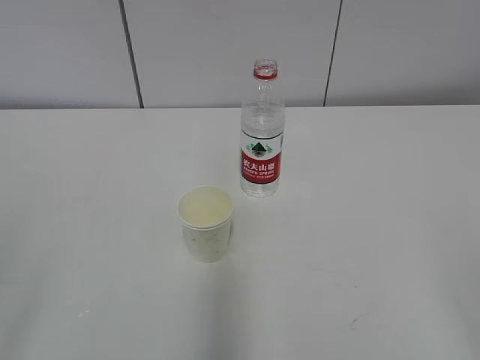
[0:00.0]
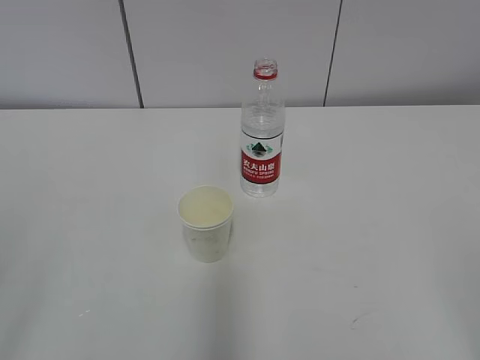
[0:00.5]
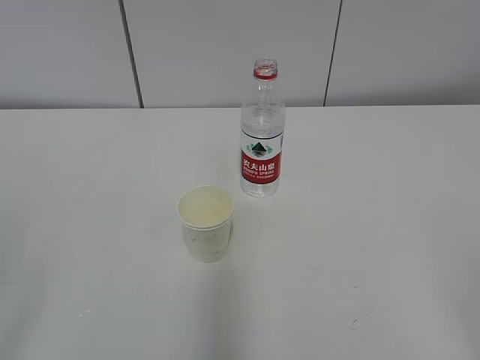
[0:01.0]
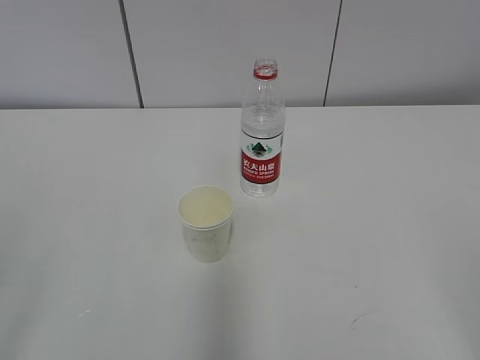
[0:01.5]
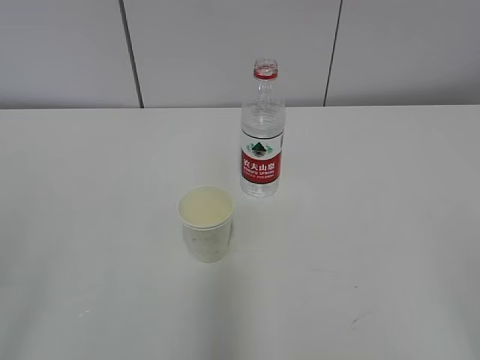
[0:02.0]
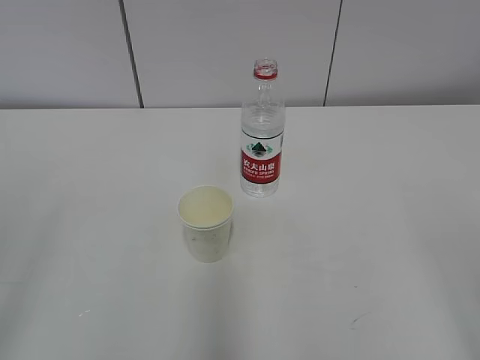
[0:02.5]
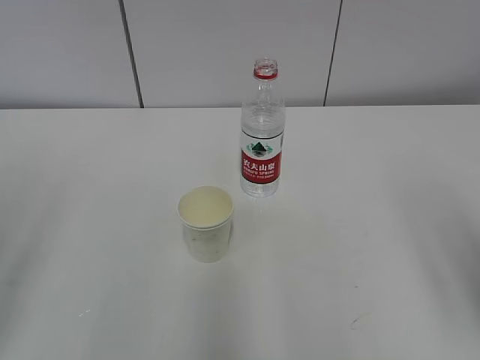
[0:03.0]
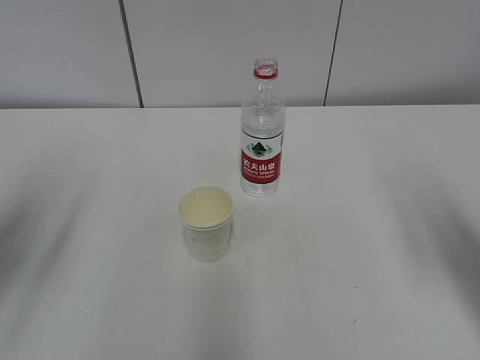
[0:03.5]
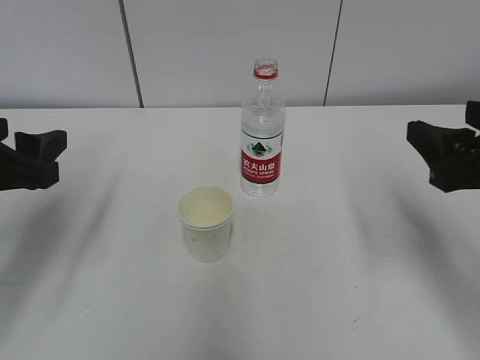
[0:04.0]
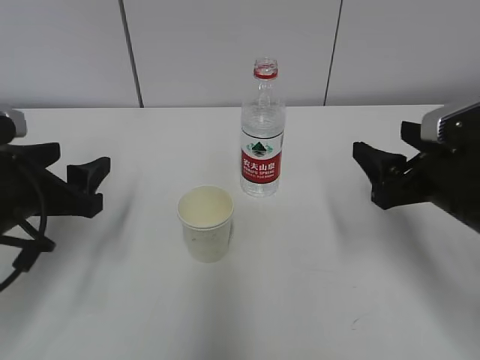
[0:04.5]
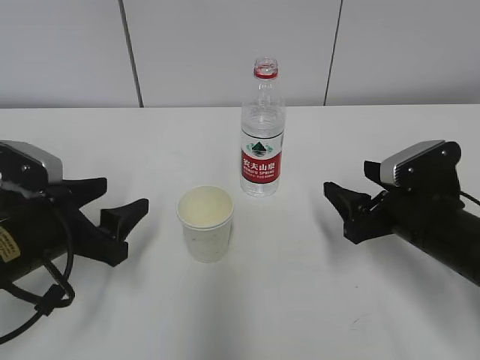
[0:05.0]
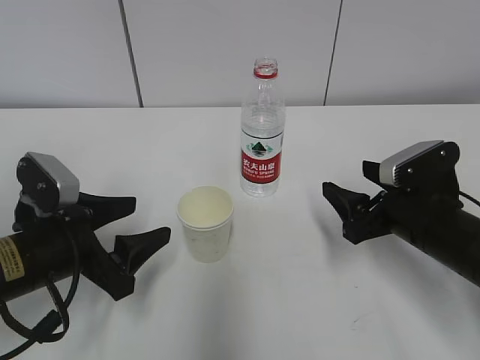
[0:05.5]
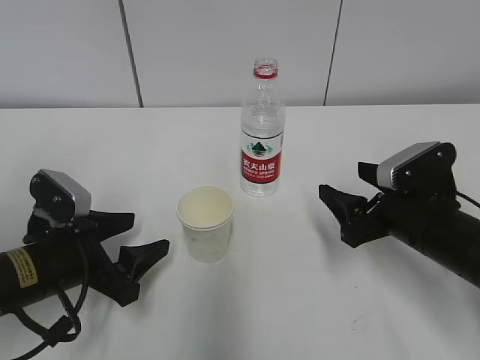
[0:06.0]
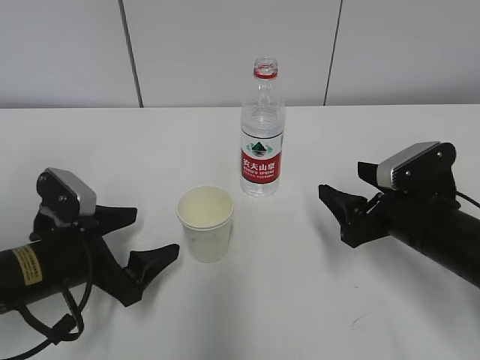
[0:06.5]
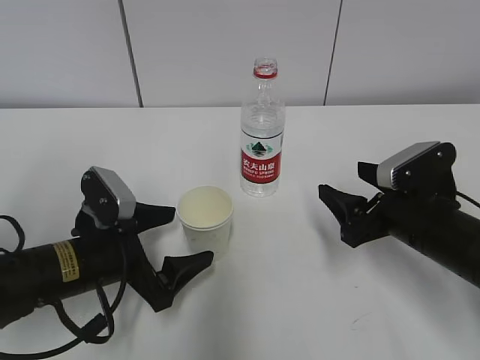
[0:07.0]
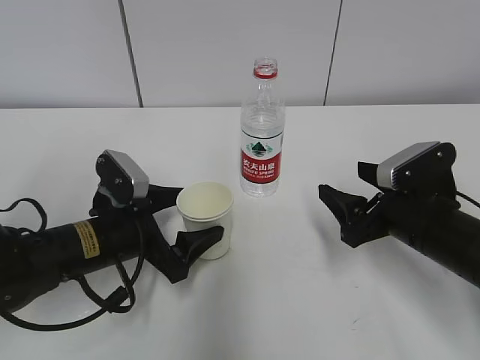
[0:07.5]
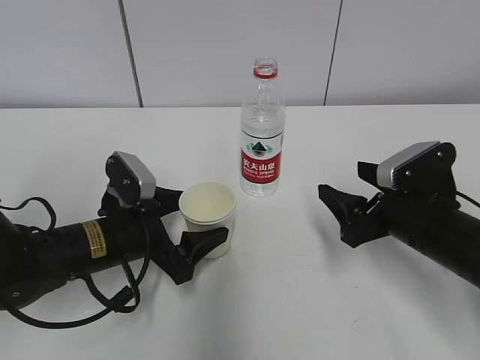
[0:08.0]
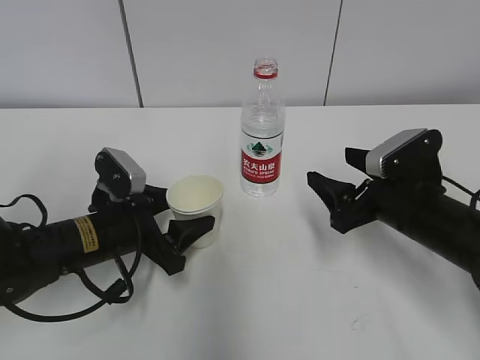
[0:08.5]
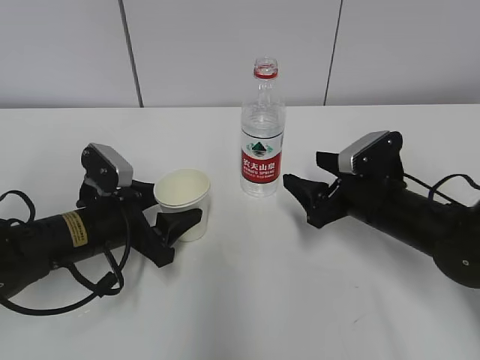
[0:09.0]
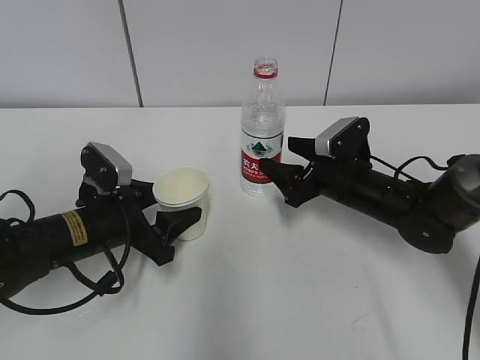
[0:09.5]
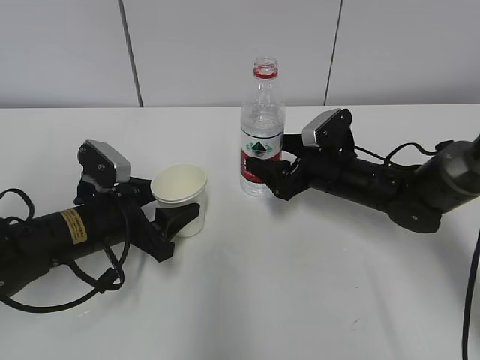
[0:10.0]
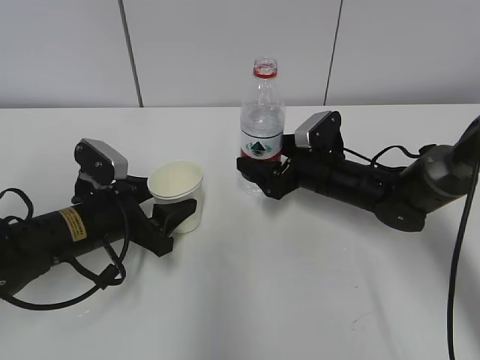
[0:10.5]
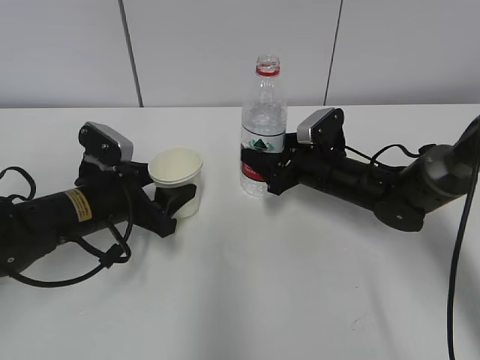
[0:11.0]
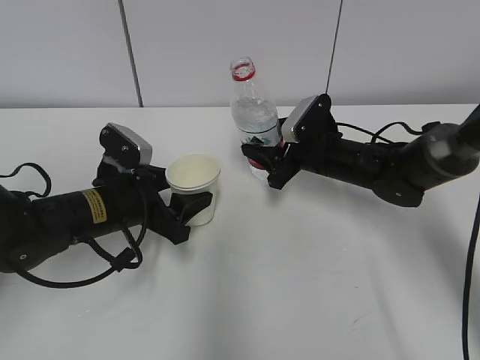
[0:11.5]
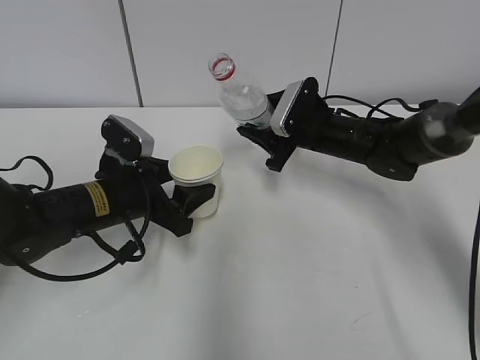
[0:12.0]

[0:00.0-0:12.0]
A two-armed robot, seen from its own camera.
Step, 0:00.0 to 0:09.0: Grab the paper cup with the left hand.
0:02.0 to 0:04.0: The two grippers go some 25 cm forward.
0:04.0 to 0:06.0: The right gripper heads downward and forward, covering about 15 cm. The left gripper moves downward, roughly 15 cm.
0:06.0 to 0:08.0: The left gripper moves to the right, roughly 5 cm.
0:08.0 to 0:10.0: The right gripper travels forward by approximately 15 cm, and opens up. Meanwhile the left gripper closes up.
0:10.0 to 0:12.0: The right gripper goes some 5 cm forward, and closes.

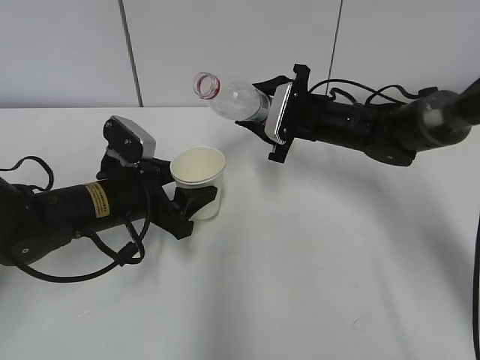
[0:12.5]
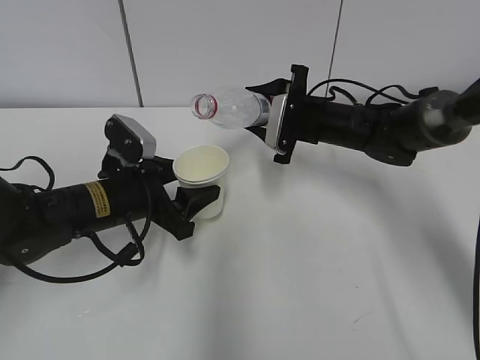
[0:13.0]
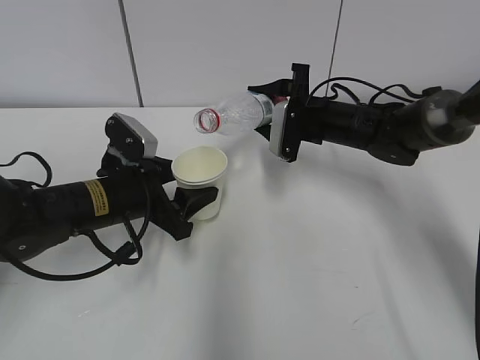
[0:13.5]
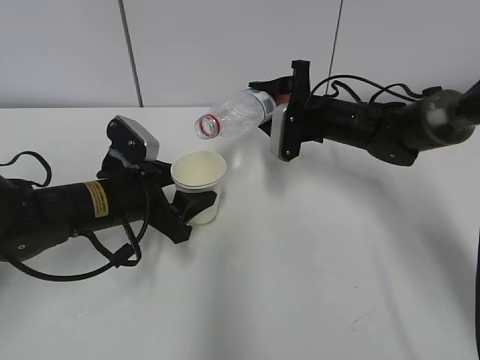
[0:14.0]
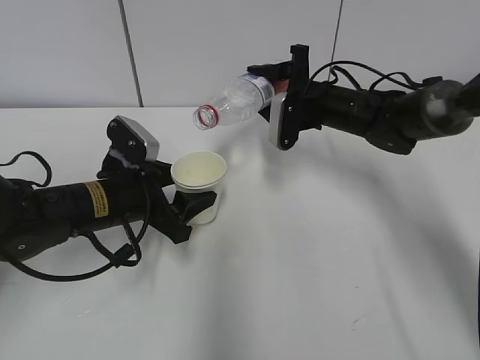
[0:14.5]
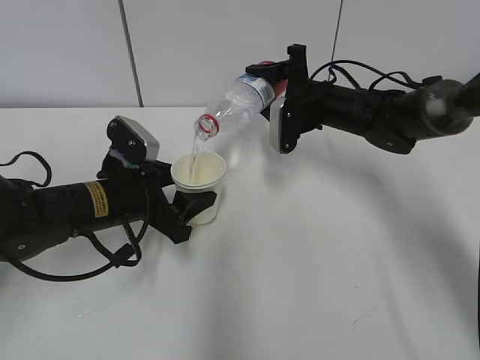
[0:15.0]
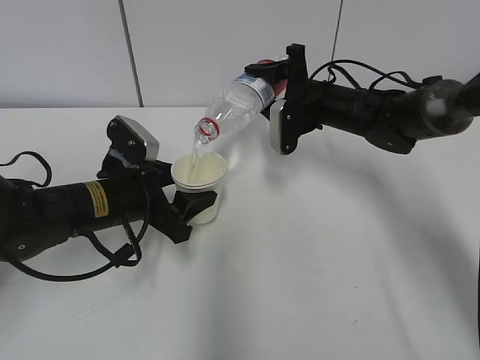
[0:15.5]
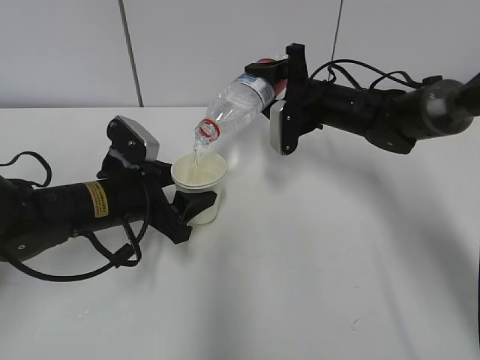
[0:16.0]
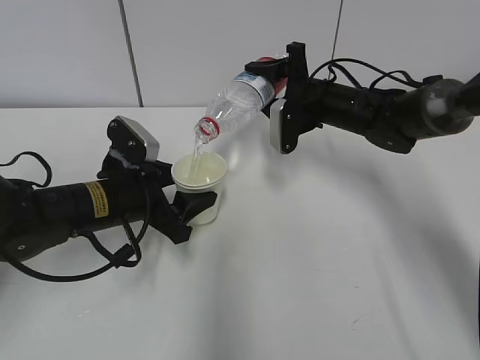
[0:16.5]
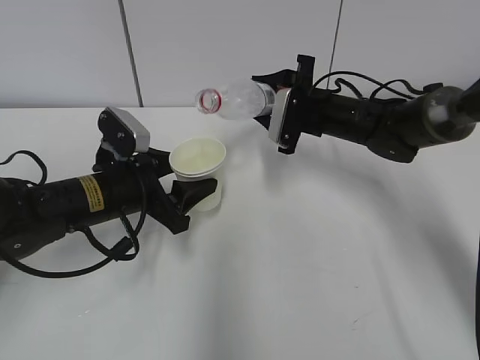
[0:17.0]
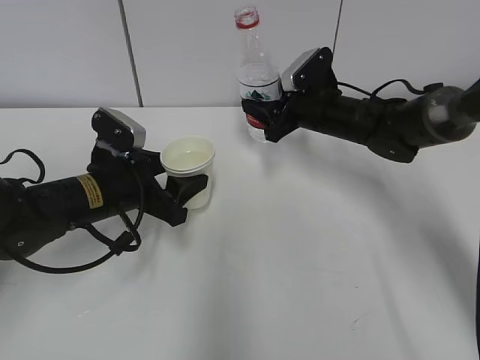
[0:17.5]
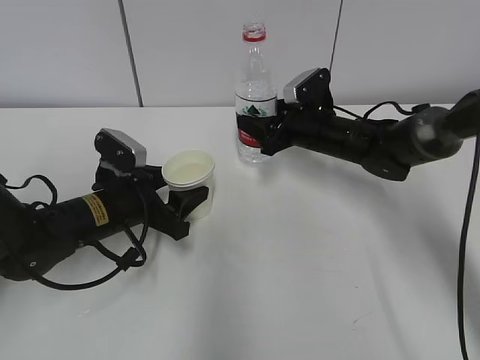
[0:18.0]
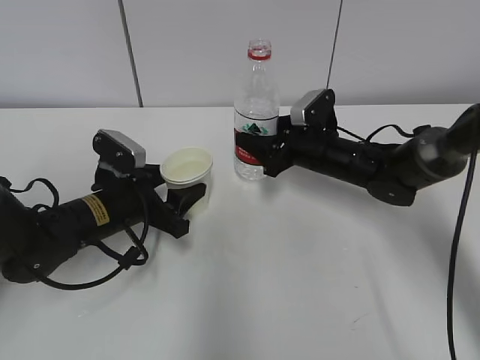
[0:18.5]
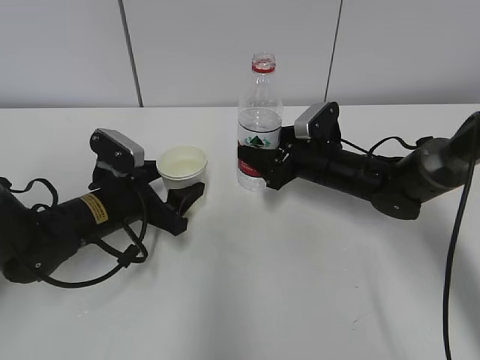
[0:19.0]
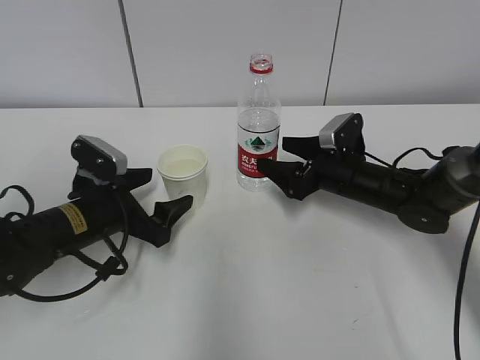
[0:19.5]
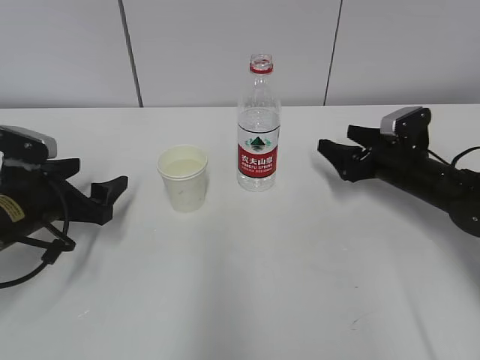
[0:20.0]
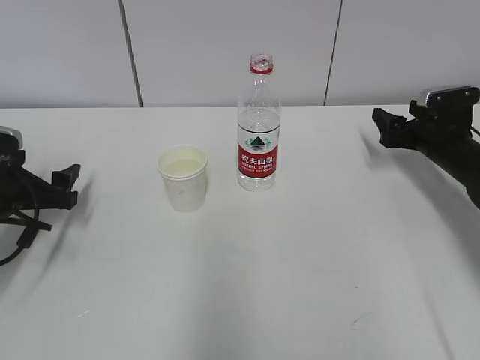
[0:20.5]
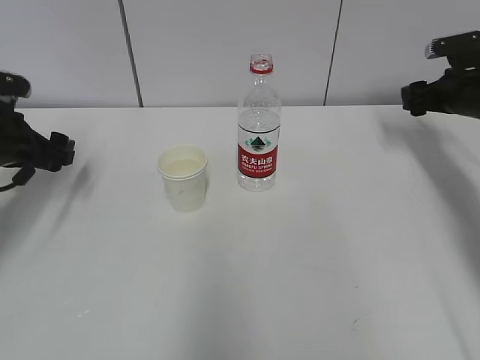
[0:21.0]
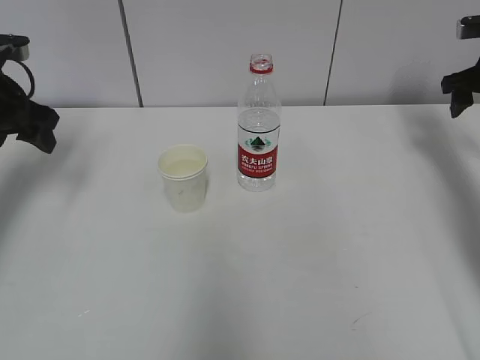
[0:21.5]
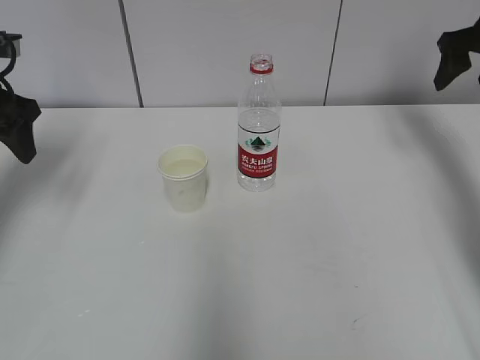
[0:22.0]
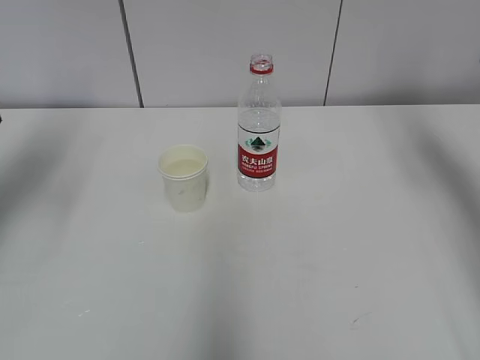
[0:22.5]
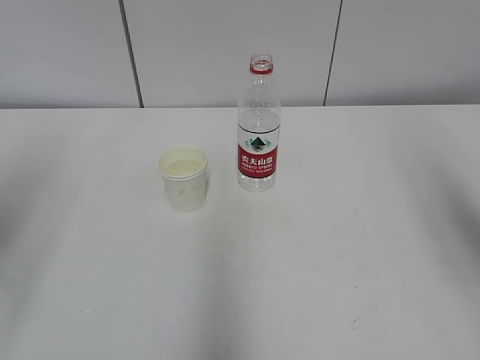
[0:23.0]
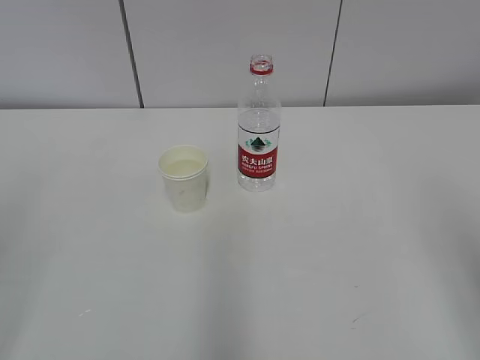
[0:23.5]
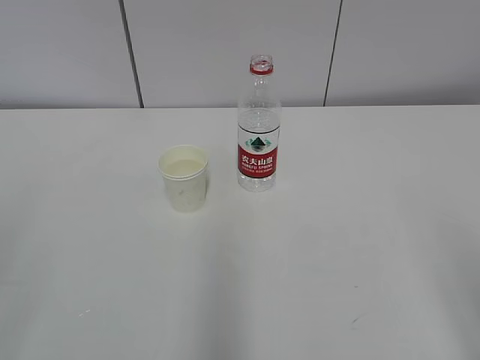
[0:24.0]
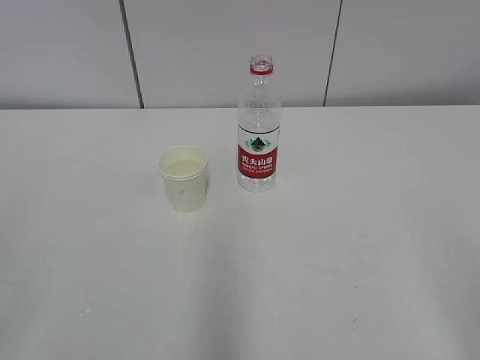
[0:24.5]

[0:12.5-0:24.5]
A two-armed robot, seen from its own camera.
Step, 0:12.5 to 0:14.0: Fill water with the left hand.
Step, 0:12.5 to 0:14.0: Pour water with the right hand.
0:14.5 to 0:16.5: The grippers stay close to where they were, moving slightly.
0:16.5 to 0:18.5: The right gripper shifts some 5 cm downward.
0:18.5 to 0:20.5: The left gripper travels to the left by approximately 15 cm, and opens its fingers. Meanwhile the right gripper goes some 20 cm to the right, and opens its fingers.
0:20.5 to 0:22.5: The right gripper is displaced upward and backward by roughly 30 cm, while the left gripper goes some 25 cm upward.
0:22.5 to 0:24.5: The two grippers go approximately 35 cm backward.

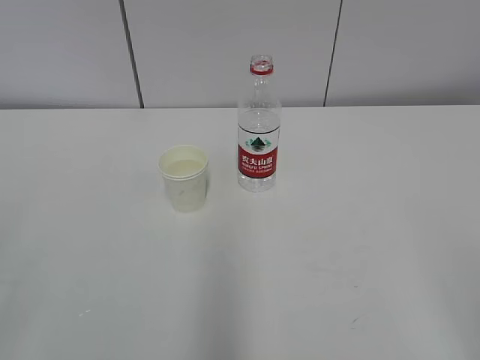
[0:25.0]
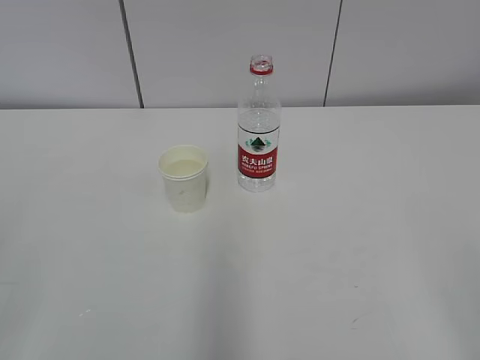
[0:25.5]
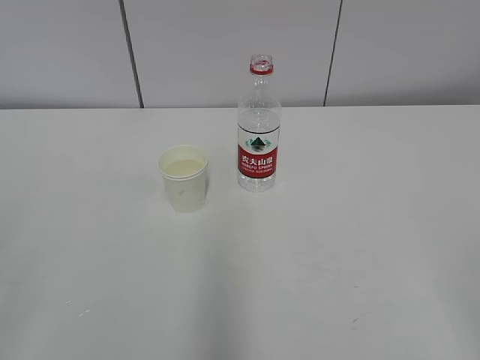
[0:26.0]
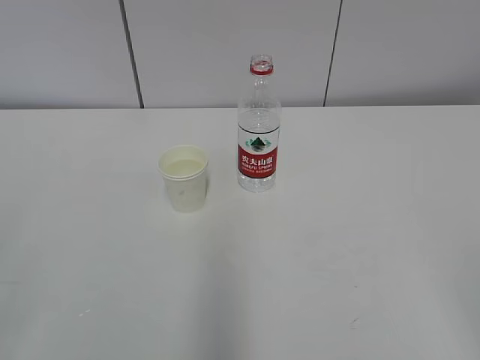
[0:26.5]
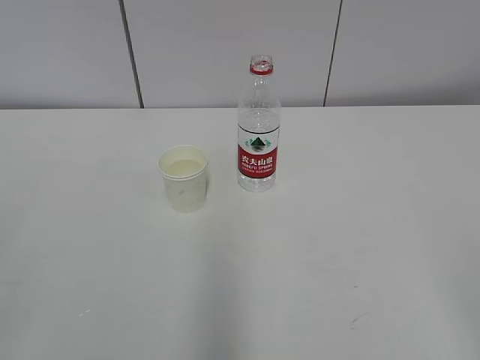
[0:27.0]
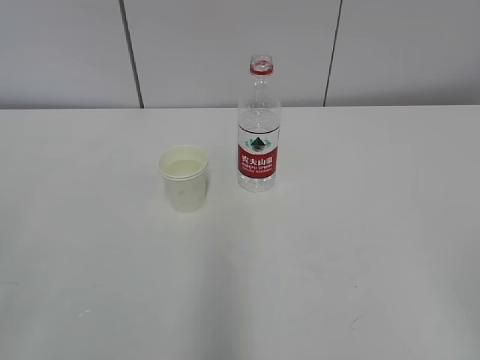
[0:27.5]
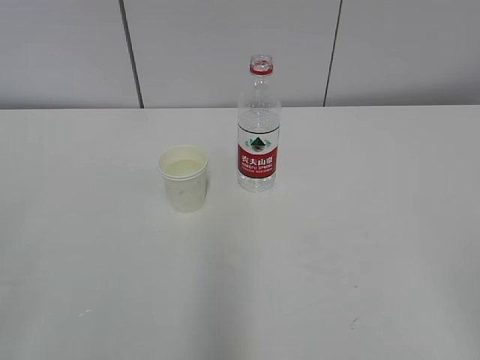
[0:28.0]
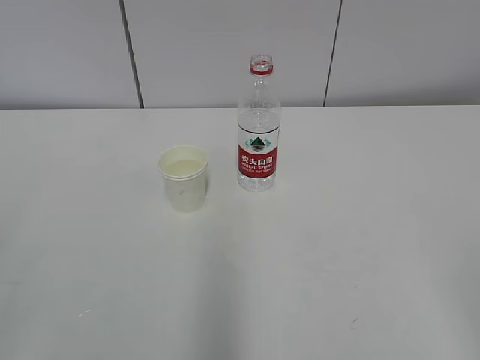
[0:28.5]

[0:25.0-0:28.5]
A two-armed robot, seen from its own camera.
0:27.0 to 0:28.5: Both grippers stay put.
